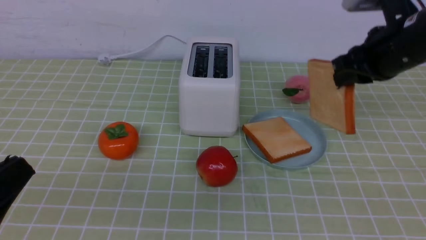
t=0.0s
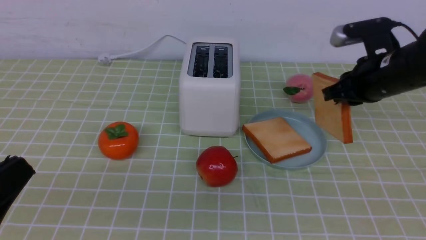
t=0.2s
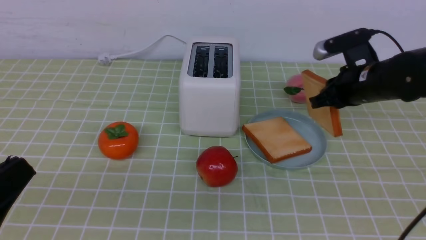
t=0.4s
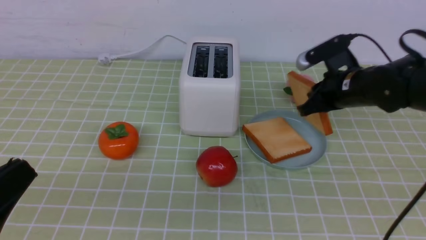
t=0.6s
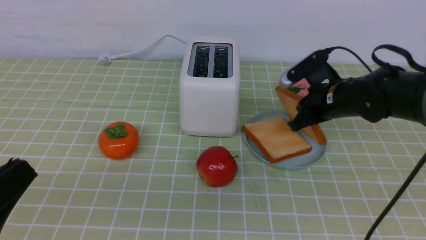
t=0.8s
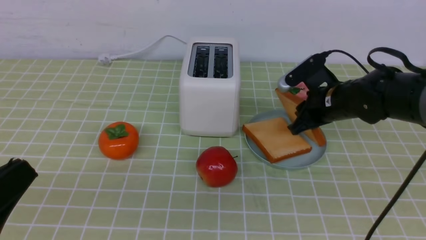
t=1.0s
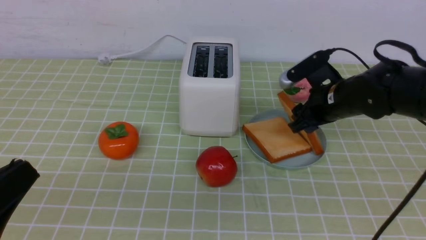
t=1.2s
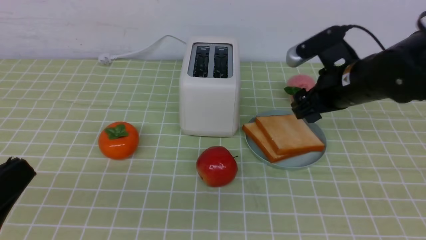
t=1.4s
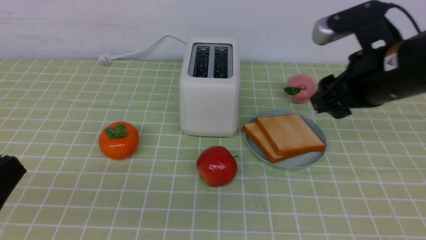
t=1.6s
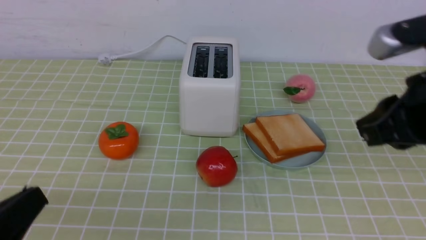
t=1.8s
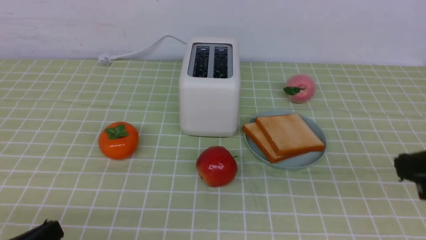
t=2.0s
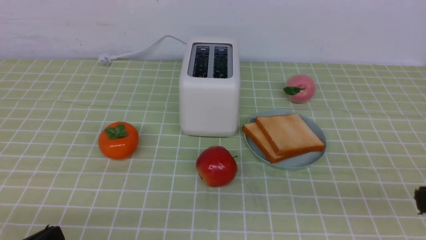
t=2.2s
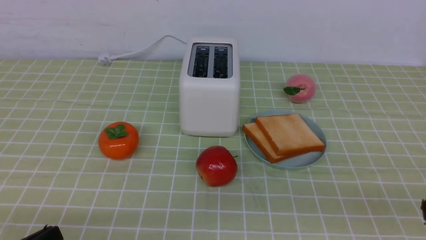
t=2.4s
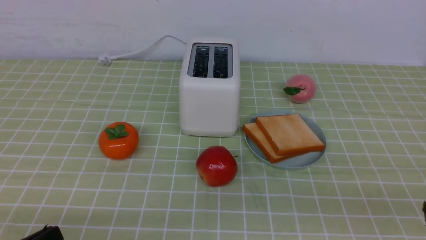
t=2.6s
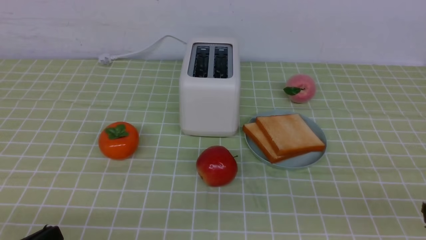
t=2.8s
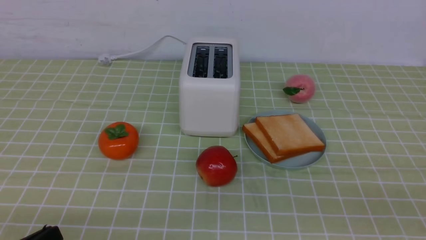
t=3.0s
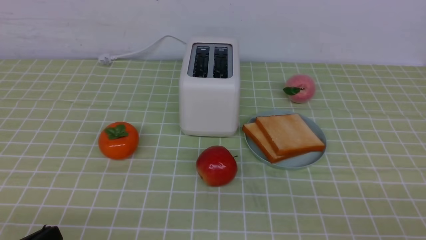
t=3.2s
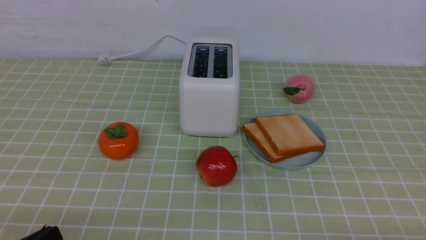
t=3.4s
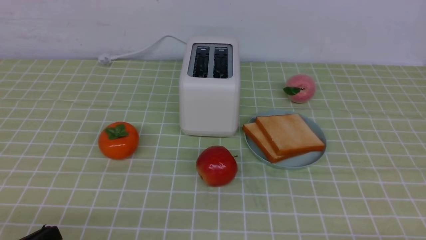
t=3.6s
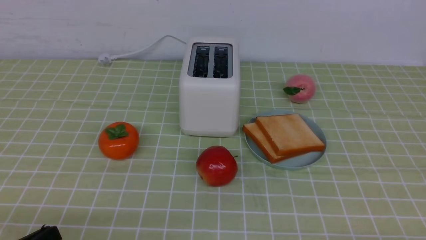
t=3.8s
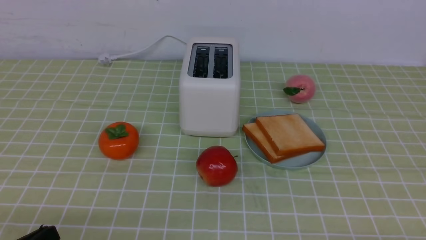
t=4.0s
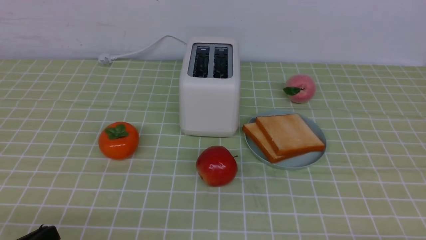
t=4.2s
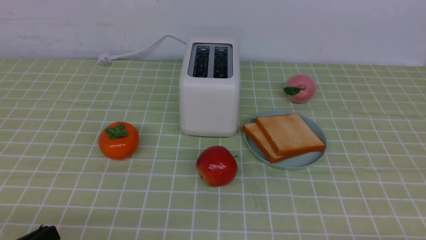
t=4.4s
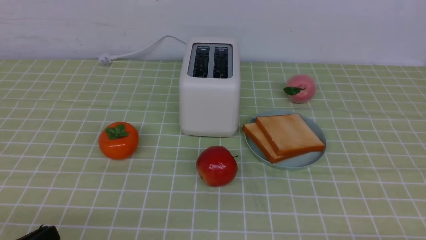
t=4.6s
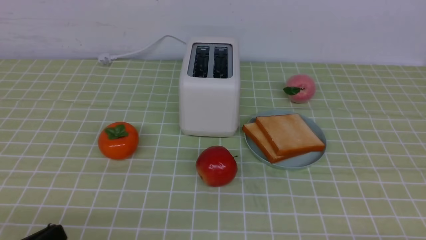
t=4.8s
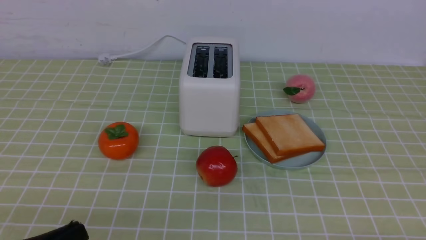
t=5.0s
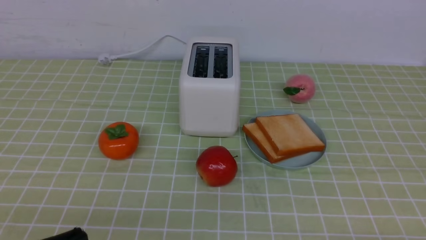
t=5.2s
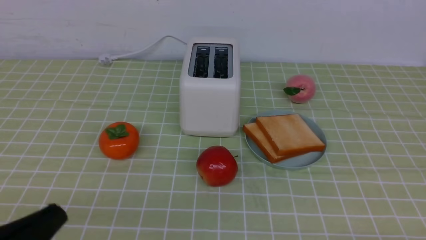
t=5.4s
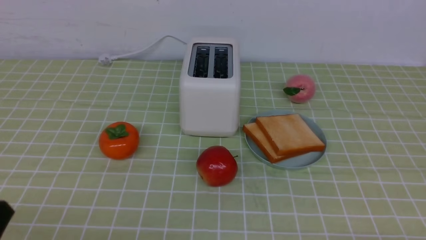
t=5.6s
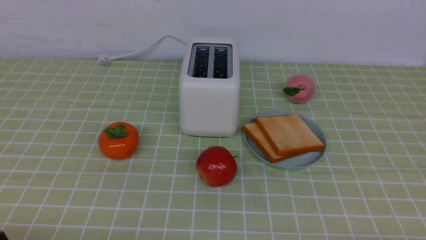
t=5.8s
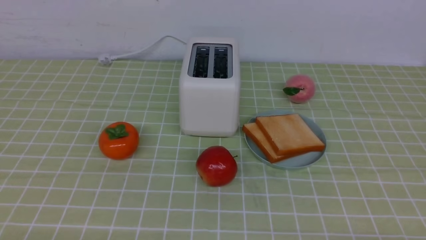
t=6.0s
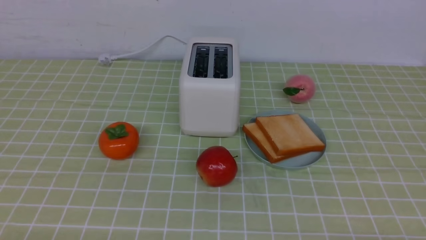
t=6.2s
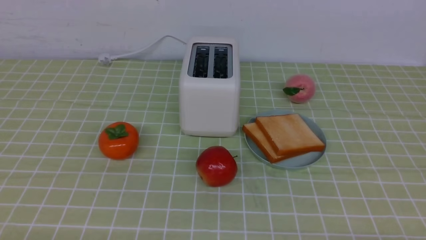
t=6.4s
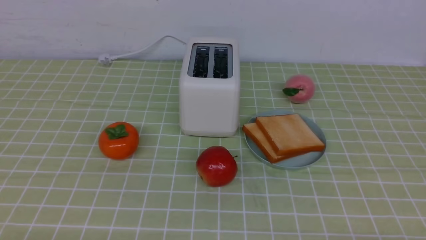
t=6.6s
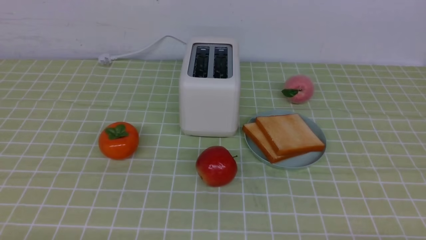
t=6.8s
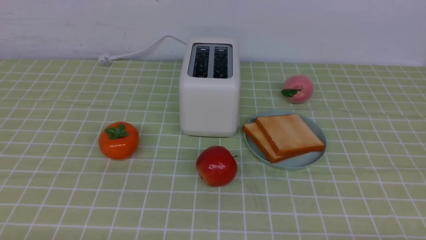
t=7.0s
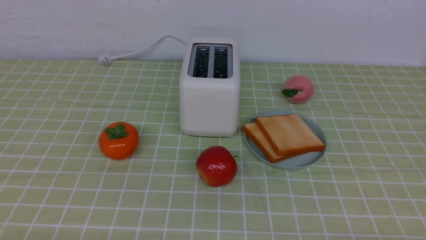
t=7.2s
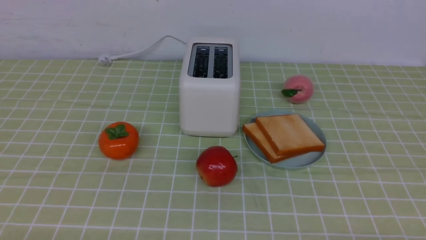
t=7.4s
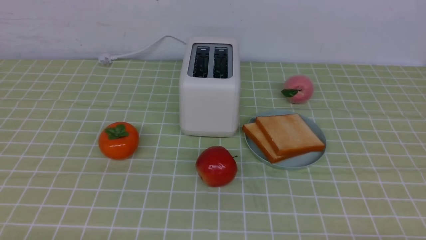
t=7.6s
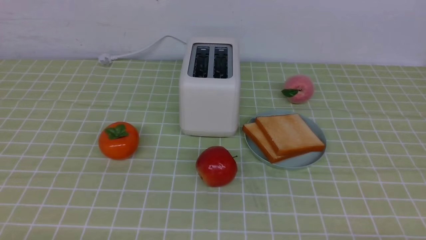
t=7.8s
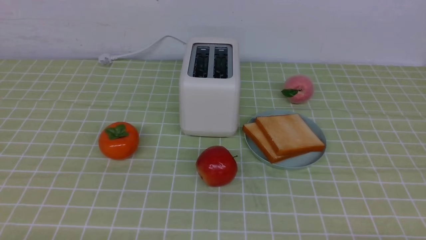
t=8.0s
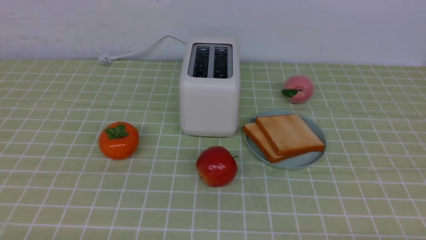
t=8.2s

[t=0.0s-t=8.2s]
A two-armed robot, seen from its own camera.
Task of the whole recording: take toasted bread from bread machine on green coffee tablecloth place on plate.
Step, t=0.0s to t=1.6s: use the right arm to put a slice of bread into the plate.
t=0.0s to t=1.6s: The right gripper heads backward, covering some 10 cm, and opens its fingers.
t=1.6s to t=3.2s: The left gripper goes approximately 5 cm downward; the right gripper heads backward, to the right and downward, covering approximately 25 cm, and closes its fingers.
t=5.0s to t=6.6s: The left gripper shifts about 5 cm downward.
t=6.6s to t=8.2s: Neither gripper changes place.

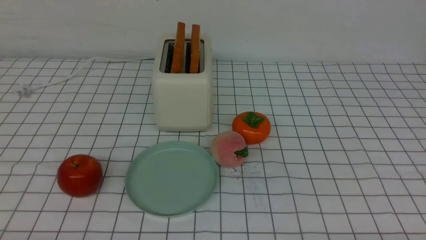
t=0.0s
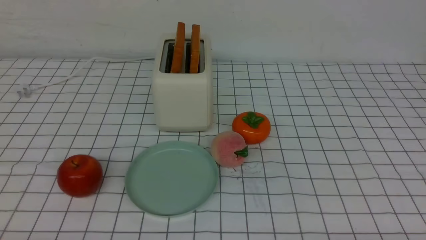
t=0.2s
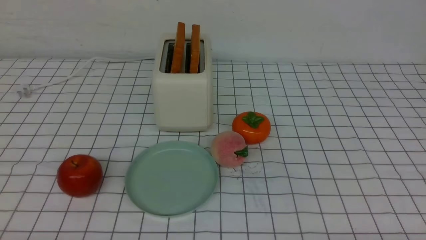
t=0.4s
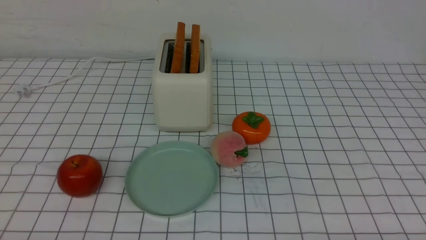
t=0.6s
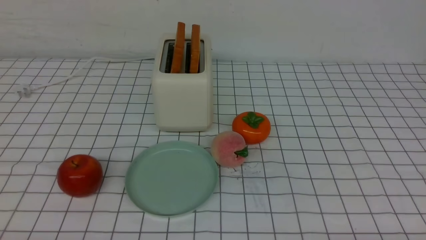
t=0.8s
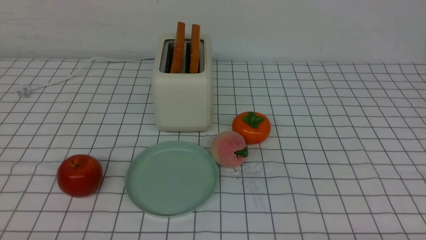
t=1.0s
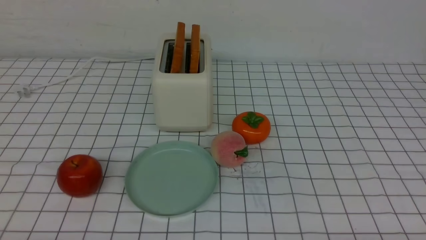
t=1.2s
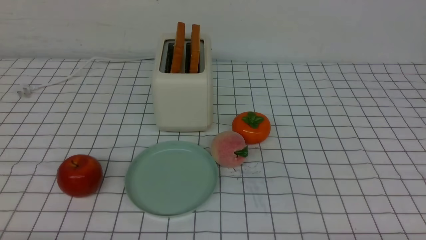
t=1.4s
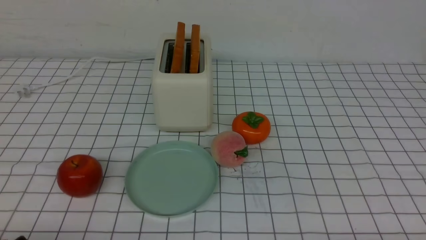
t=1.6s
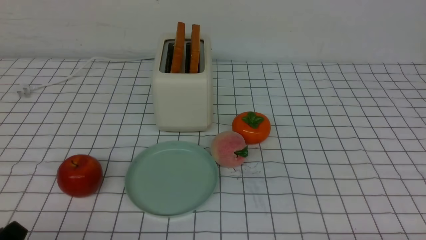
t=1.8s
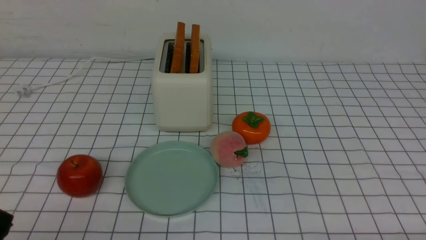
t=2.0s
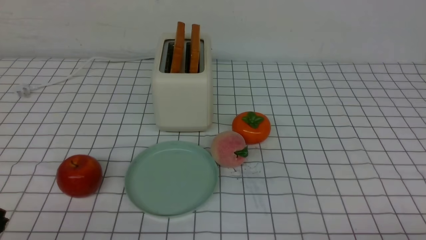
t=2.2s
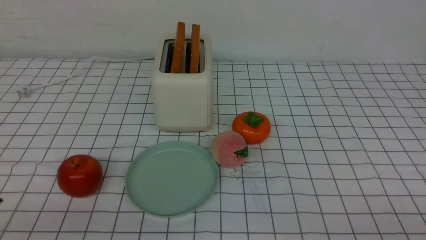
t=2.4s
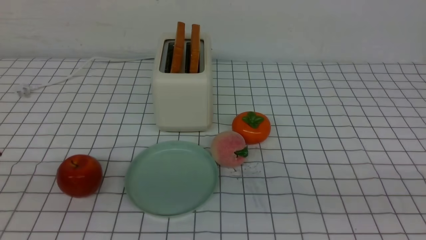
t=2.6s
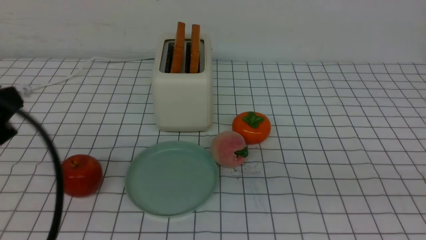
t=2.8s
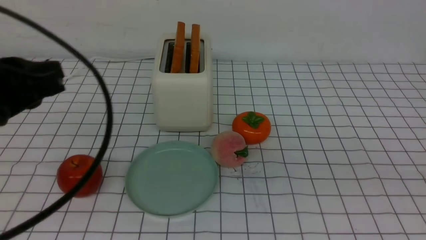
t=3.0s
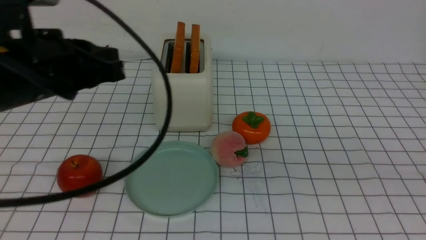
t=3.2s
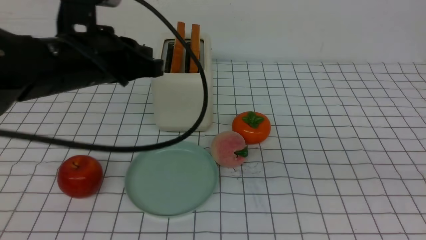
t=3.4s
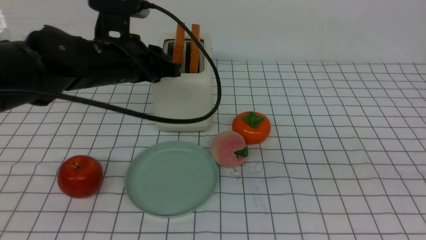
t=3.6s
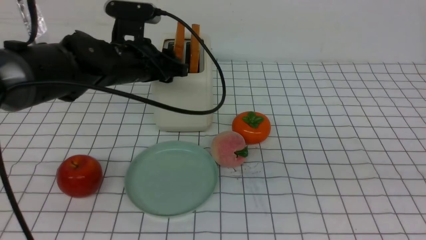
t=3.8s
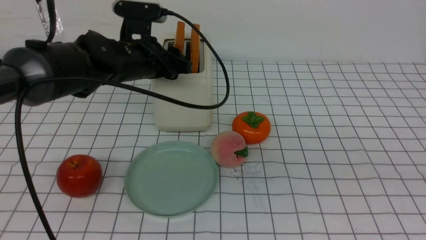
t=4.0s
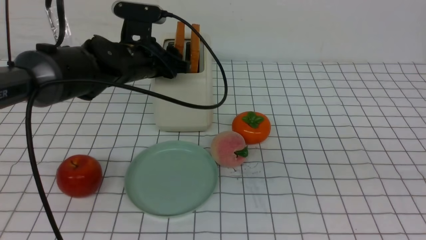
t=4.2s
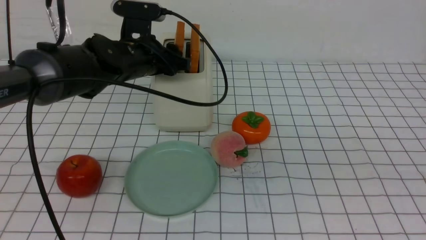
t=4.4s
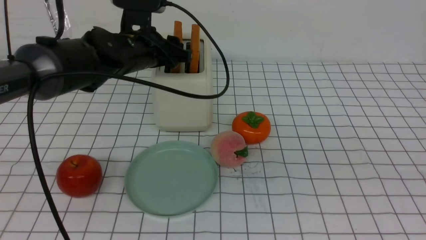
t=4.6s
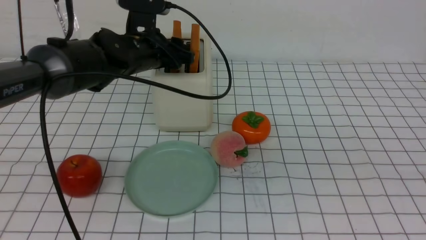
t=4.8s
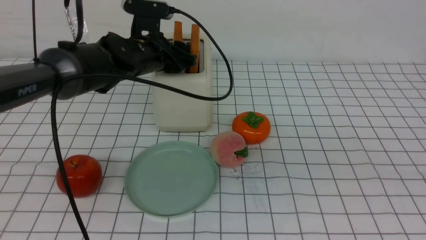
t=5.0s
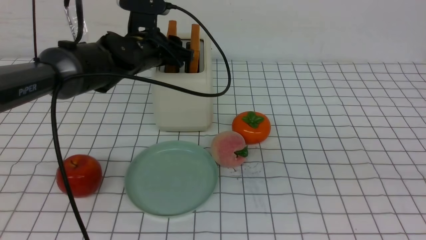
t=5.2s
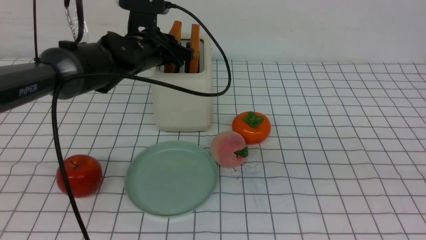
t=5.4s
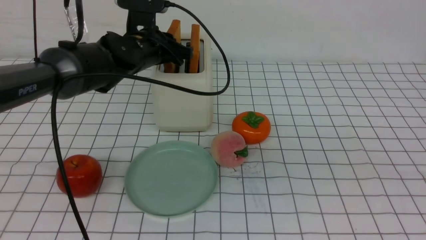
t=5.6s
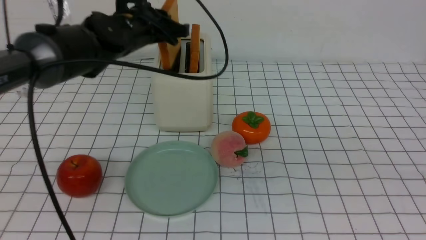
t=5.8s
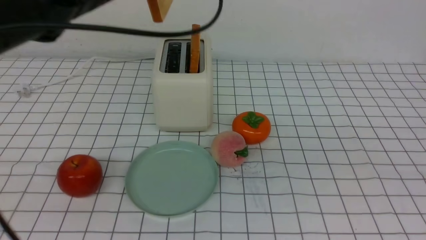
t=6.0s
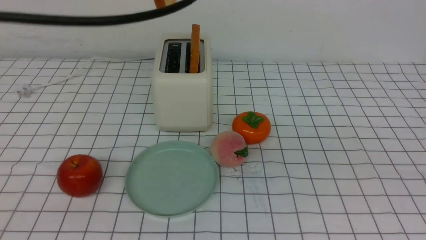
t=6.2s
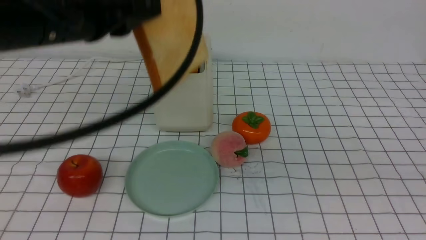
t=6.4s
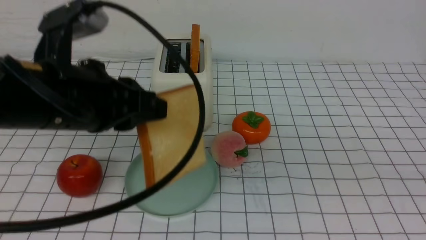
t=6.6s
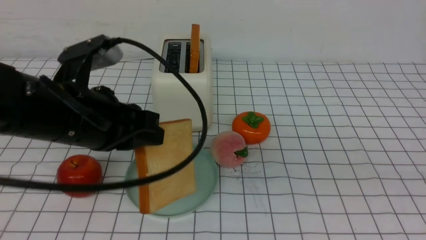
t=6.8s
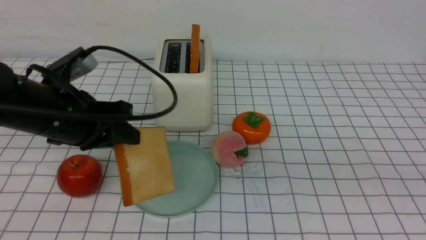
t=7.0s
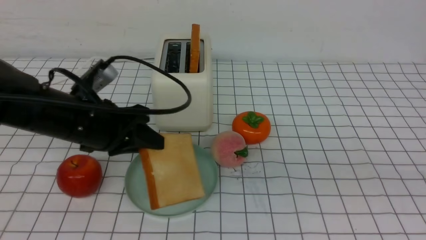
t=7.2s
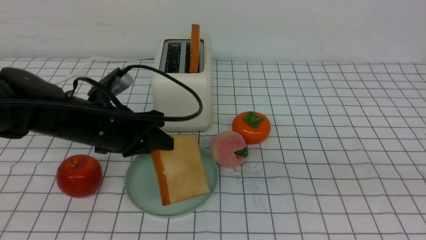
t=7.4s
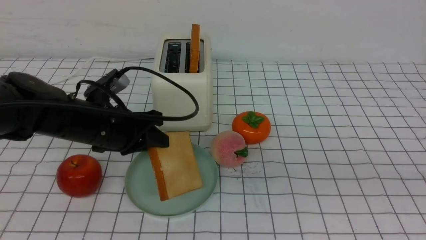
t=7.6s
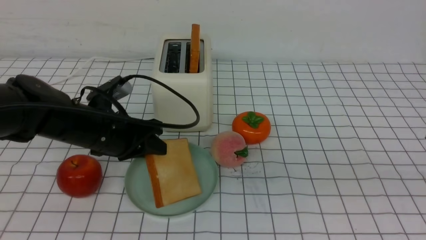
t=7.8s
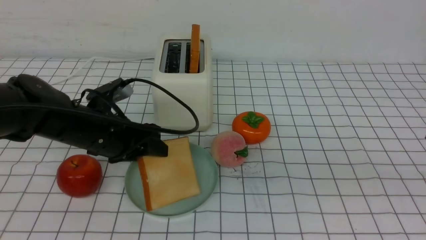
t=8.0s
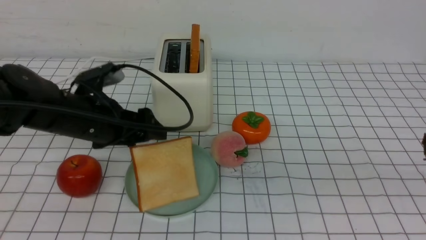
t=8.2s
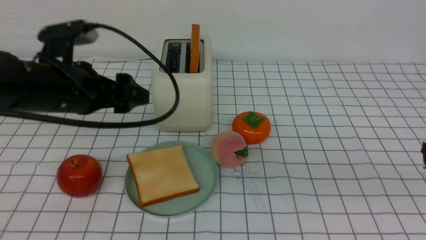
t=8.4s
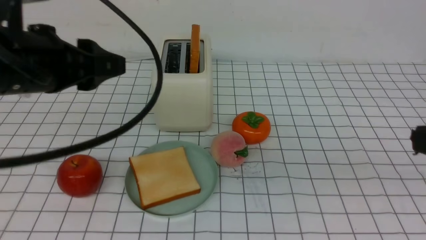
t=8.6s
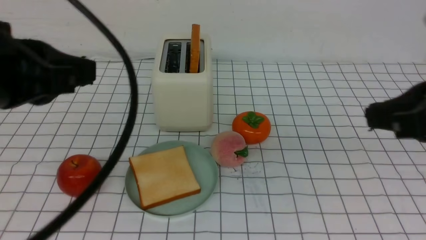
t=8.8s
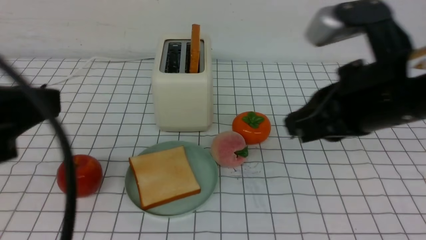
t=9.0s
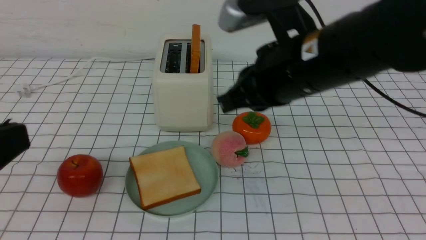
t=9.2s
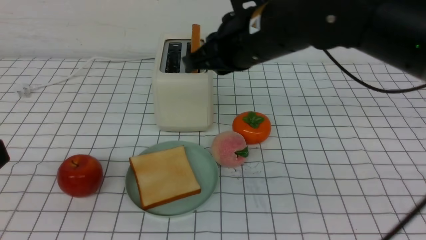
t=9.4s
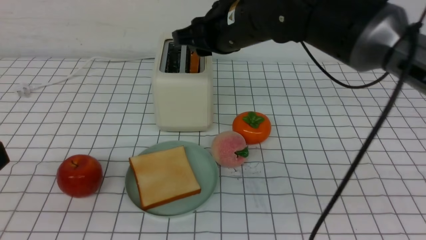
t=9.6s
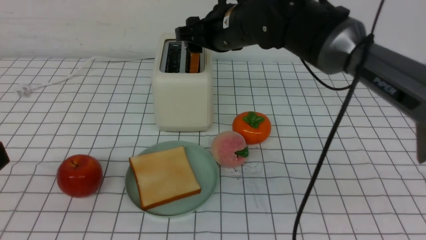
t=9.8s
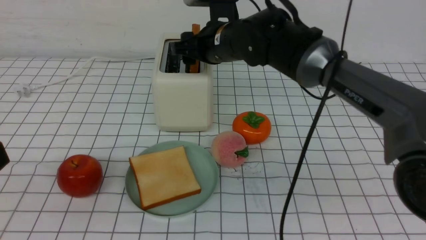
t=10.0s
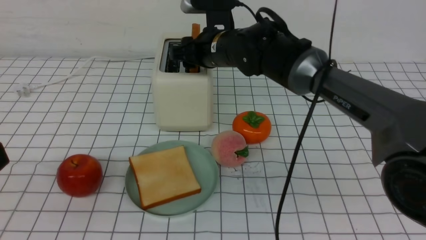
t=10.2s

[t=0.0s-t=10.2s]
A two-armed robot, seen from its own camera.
Task of the whole recording: take toasted bread from bread machine on white checkered table place on plate.
Step, t=0.0s to t=5.6s: use the left arm to take out a slice of bread.
Step, t=6.0s to t=8.4s: use the left arm to put a slice of bread into the empty plate.
t=1.4s to t=3.0s: The left gripper travels upward and forward by about 25 cm, and closes up.
t=3.0s to t=4.4s: The left gripper goes some 25 cm forward and to the right, and opens its fingers.
t=4.4s to t=5.8s: The left gripper goes some 5 cm upward, and closes up.
t=5.8s to t=7.2s: The left gripper is displaced backward and downward by roughly 15 cm.
t=7.2s to t=8.8s: The left gripper is displaced upward and backward by about 20 cm, and opens and closes again. Meanwhile the right gripper heads forward and to the left, covering approximately 10 cm.
t=8.8s to t=10.2s: The right gripper shifts some 35 cm forward and to the left, and opens; the left gripper heads backward, covering approximately 10 cm.
